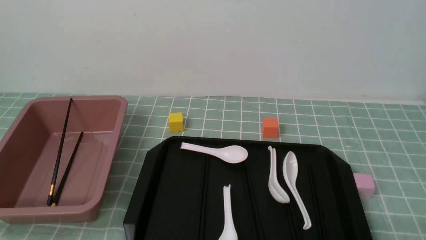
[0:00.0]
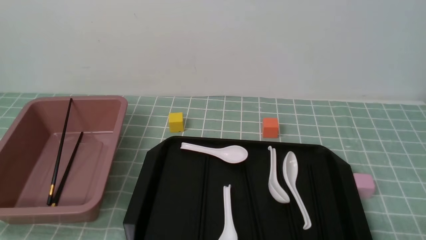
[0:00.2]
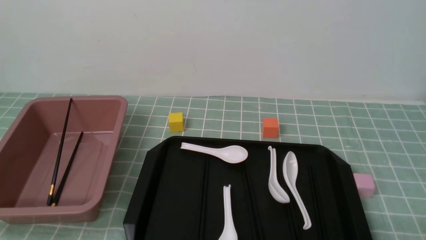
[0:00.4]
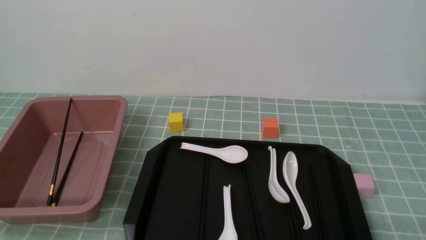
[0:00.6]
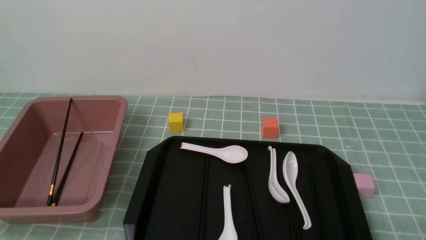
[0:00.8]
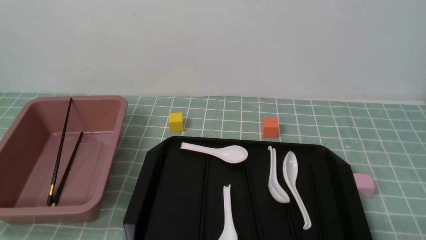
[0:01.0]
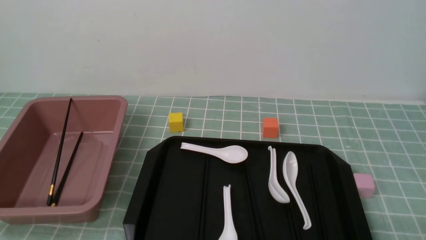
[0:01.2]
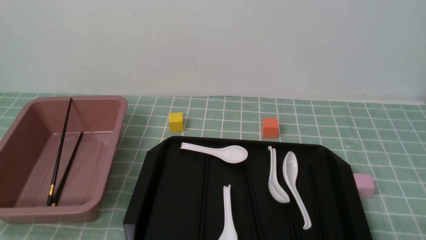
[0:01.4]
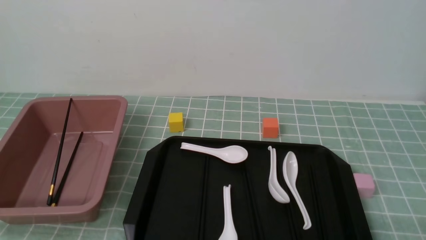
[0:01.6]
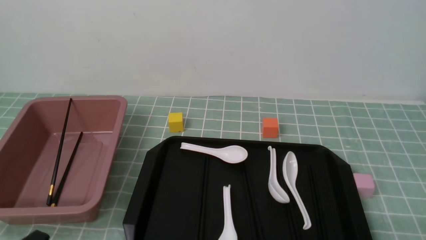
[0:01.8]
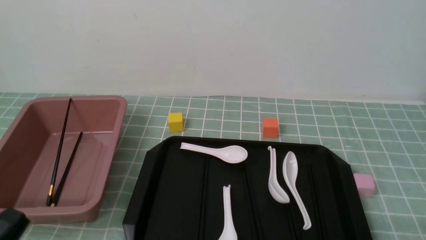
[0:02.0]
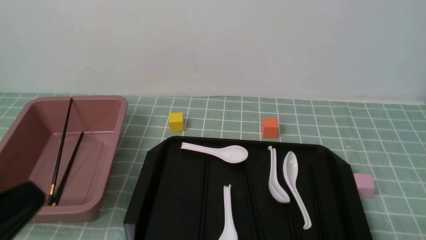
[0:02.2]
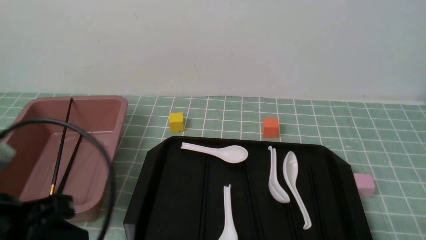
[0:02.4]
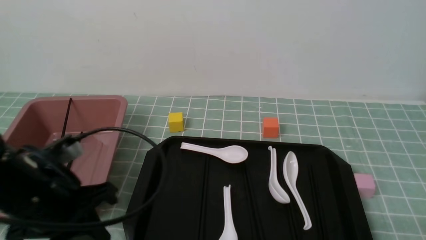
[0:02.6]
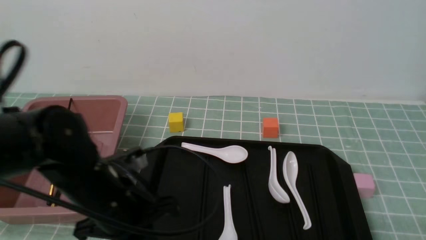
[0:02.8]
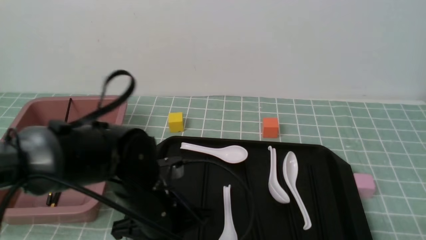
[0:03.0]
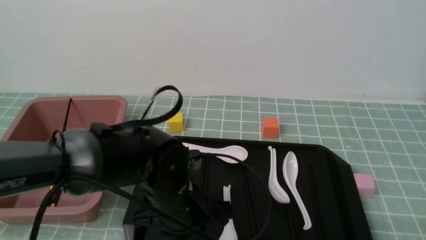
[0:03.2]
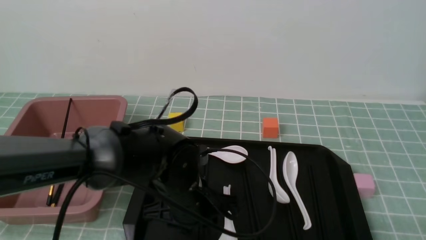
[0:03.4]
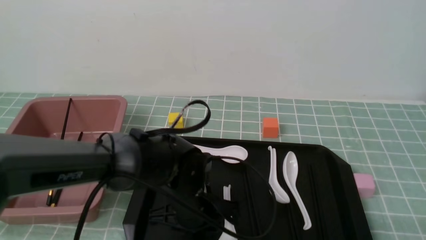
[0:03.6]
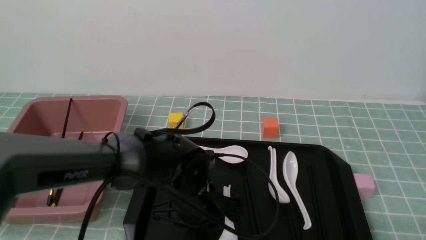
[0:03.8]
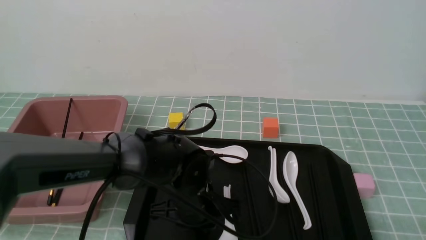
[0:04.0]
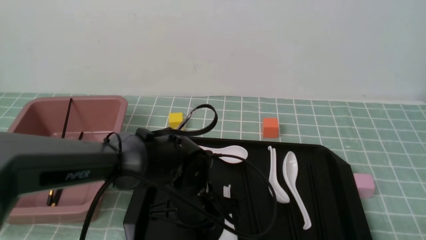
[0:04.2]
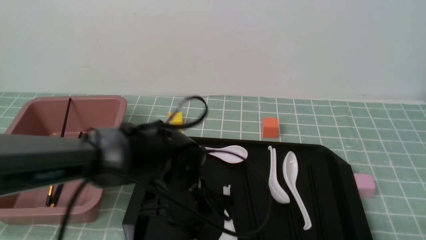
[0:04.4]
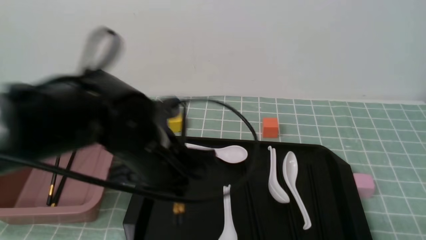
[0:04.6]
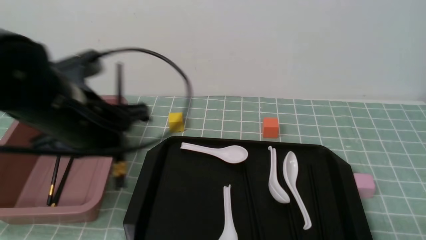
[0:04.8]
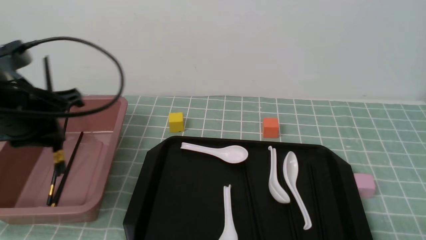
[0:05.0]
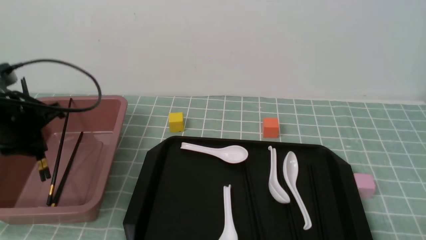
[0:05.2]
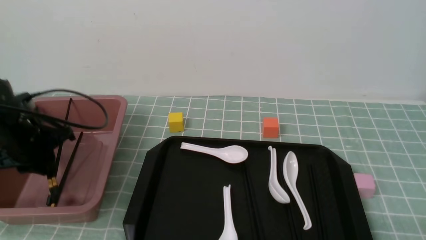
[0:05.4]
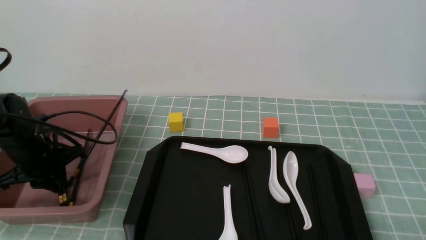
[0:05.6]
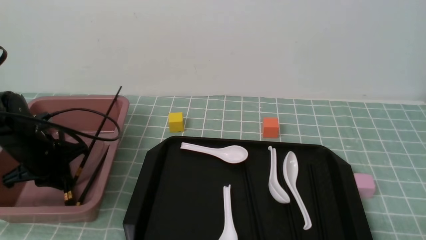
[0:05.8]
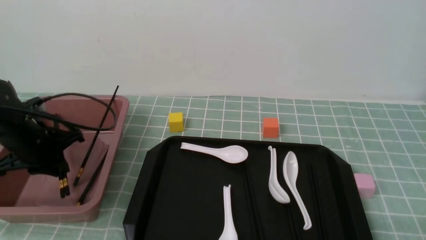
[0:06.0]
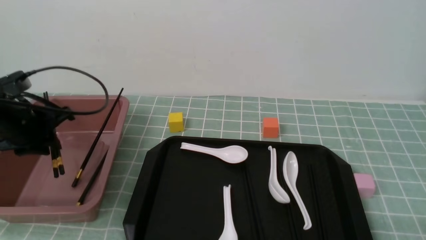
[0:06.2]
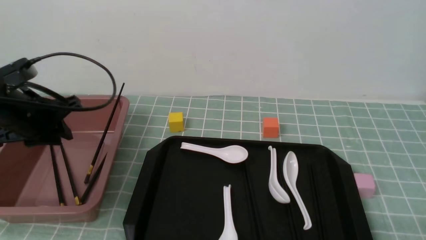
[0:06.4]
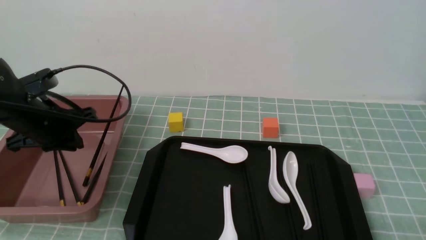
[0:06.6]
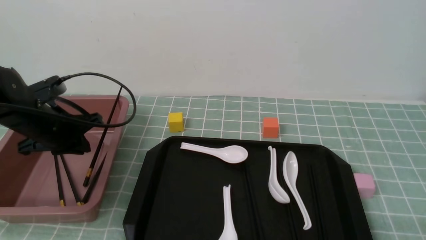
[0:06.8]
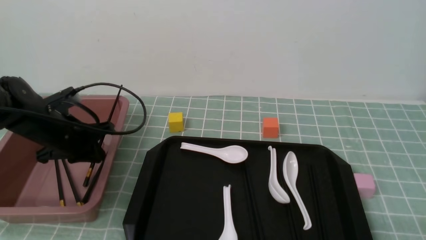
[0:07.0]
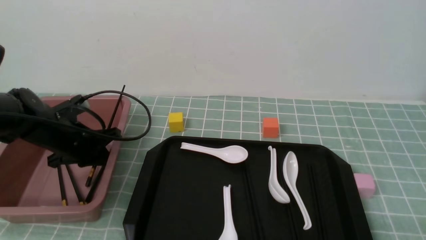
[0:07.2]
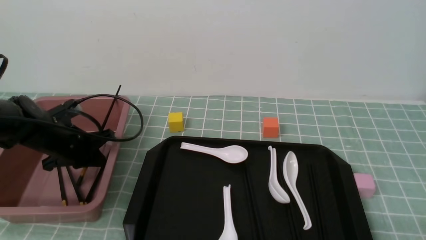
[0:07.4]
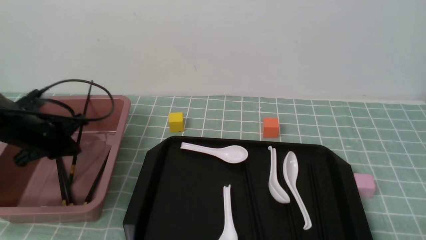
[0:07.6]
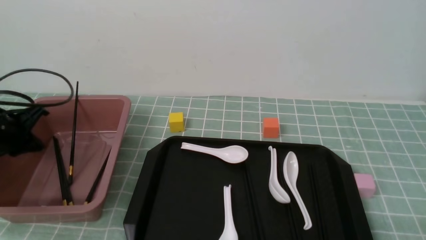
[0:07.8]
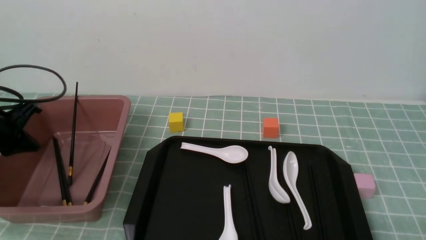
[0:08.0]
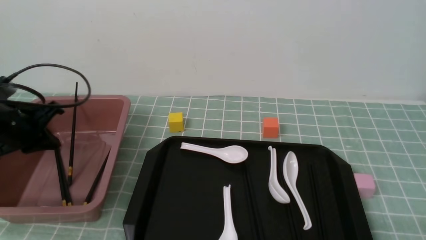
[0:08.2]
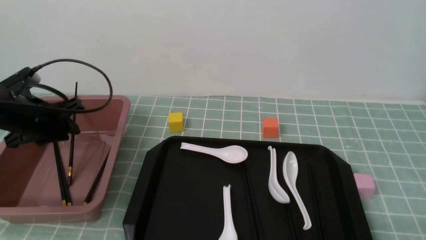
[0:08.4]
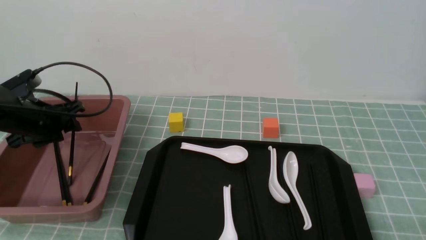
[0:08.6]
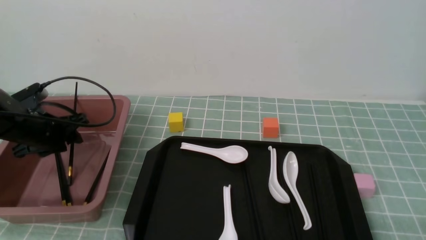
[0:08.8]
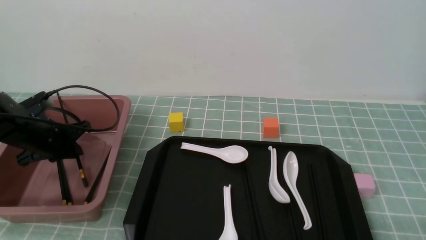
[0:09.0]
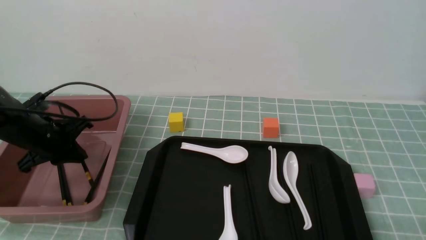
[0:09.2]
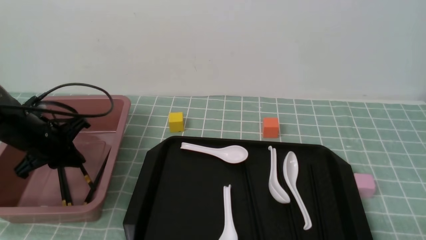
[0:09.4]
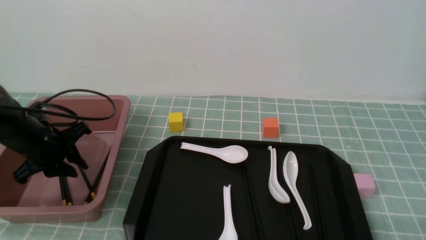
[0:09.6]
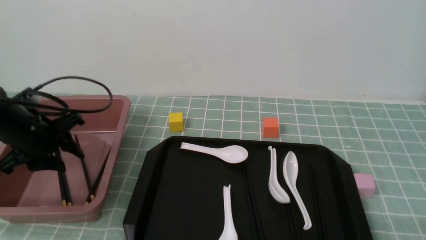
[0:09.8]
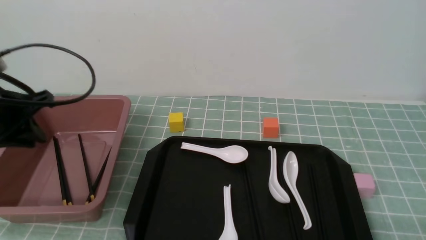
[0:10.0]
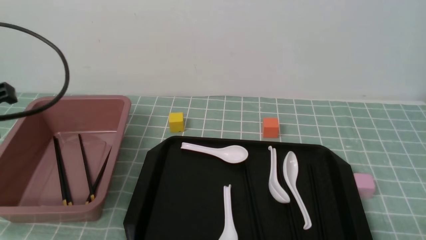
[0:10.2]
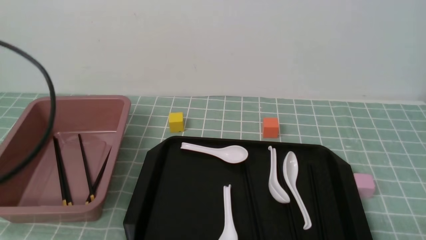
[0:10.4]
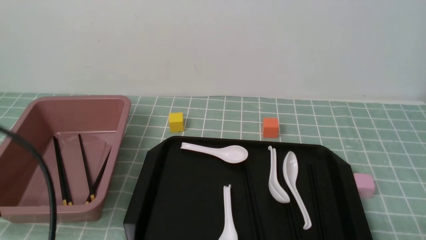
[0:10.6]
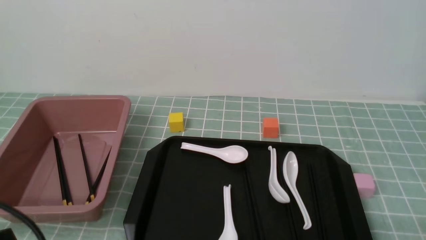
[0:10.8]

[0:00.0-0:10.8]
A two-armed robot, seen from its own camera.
Step, 0:00.0 to 0:04.6: use the left arm to grab a pair of chopsticks.
Step, 0:04.8 to 0:08.4: use the left arm to put the chopsticks into the lunch box.
0:01.6 to 0:03.0: The left gripper heads forward and to the right, covering some 25 cm.
0:03.0 to 0:04.6: The left gripper heads upward, covering about 5 cm, and opens, then closes once more.
0:04.6 to 0:06.2: The left gripper heads to the left, covering about 20 cm.
0:06.2 to 0:07.8: The left gripper shifts some 5 cm to the left, and closes its fingers.
0:07.8 to 0:09.2: The left gripper changes place by about 5 cm, and opens and closes again.
0:09.2 to 0:10.8: The left gripper heads backward, covering about 30 cm, and opens, then closes again.

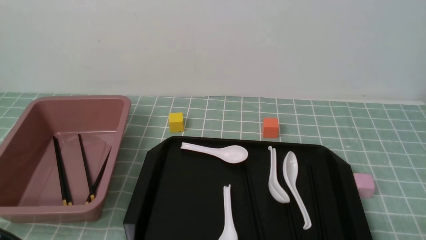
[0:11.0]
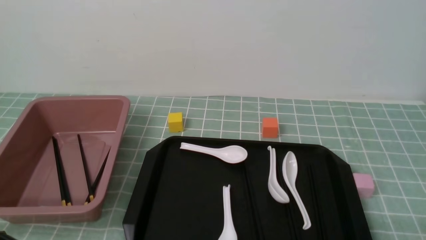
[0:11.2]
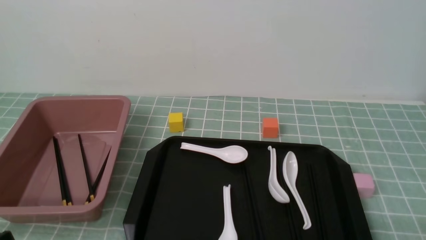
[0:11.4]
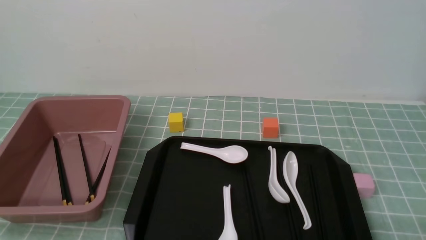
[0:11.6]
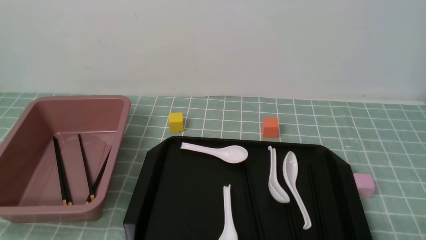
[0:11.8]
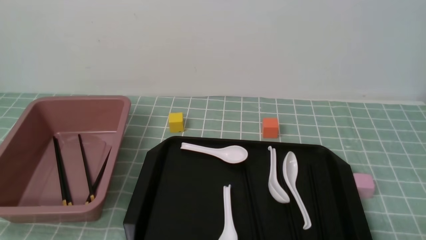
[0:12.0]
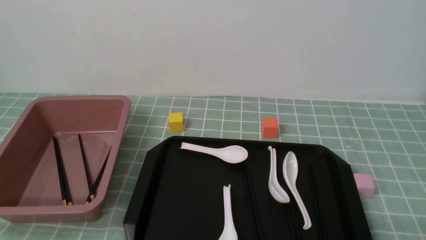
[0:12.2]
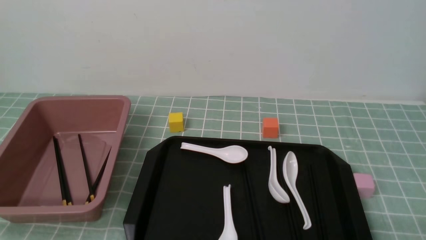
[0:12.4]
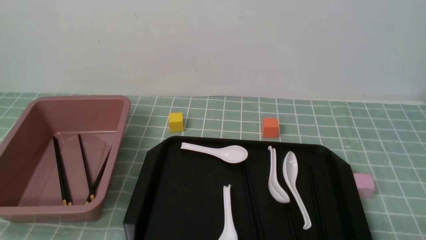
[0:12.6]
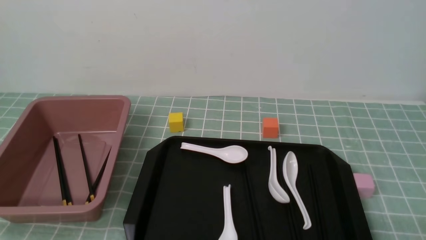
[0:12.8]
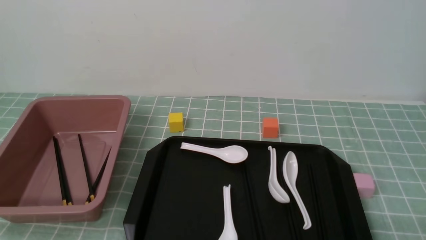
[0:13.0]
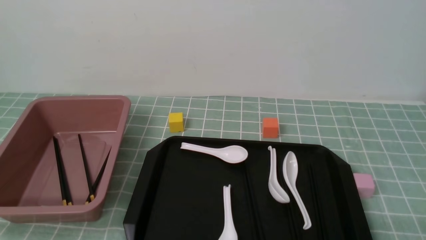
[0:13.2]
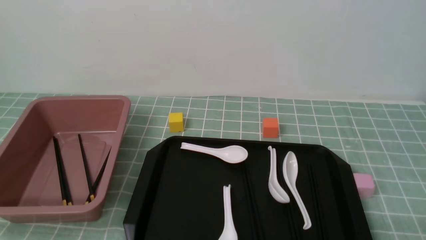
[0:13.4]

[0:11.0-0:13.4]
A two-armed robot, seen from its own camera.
0:12.2 to 0:13.4: Both grippers stay about where they are.
